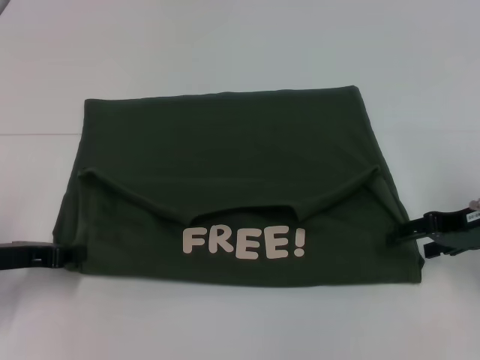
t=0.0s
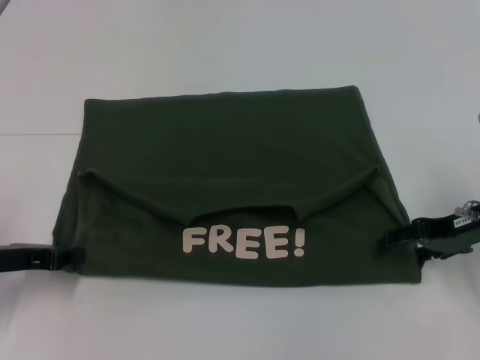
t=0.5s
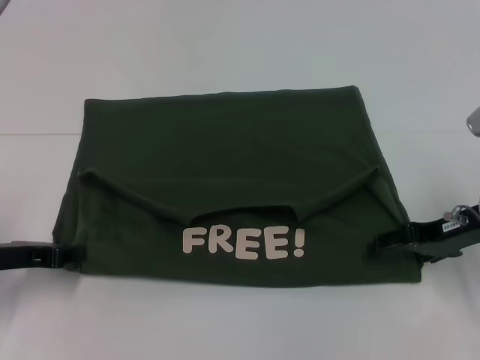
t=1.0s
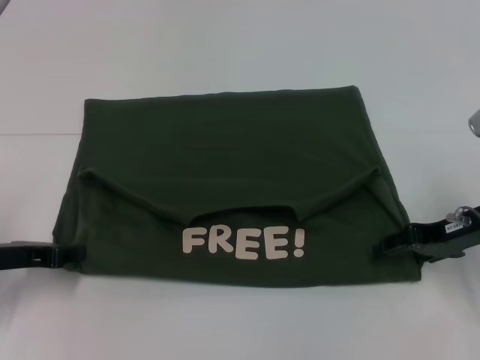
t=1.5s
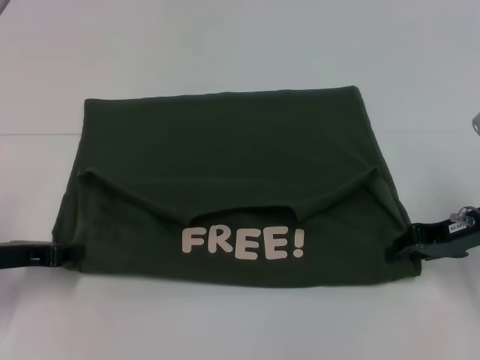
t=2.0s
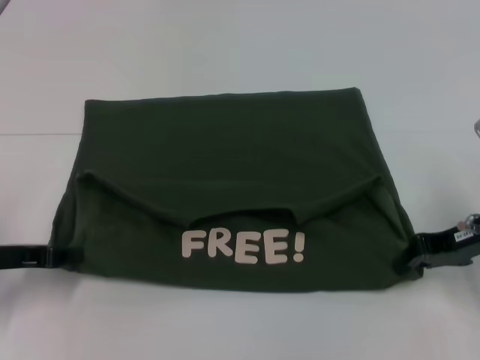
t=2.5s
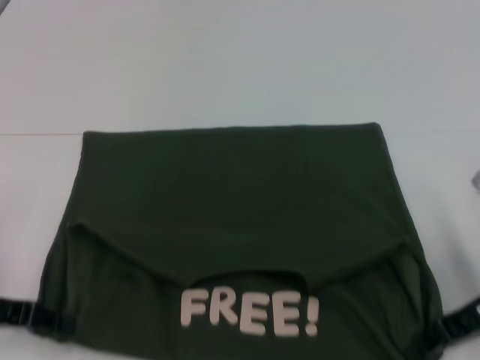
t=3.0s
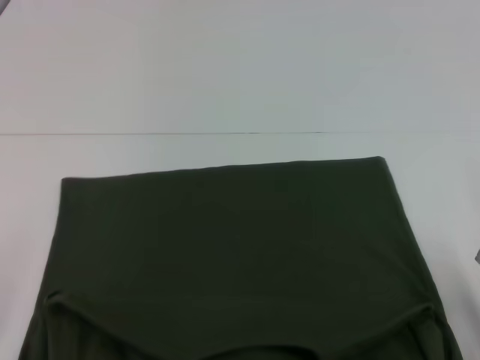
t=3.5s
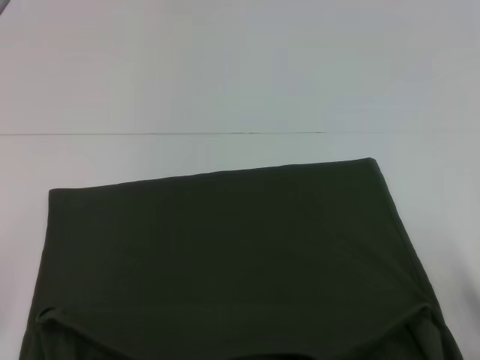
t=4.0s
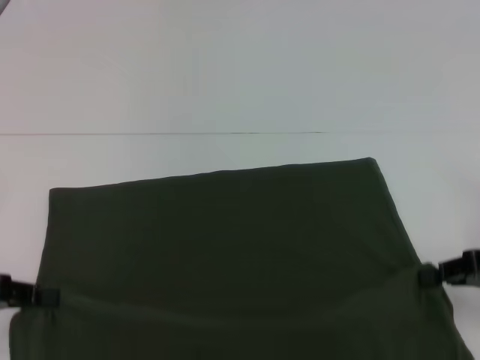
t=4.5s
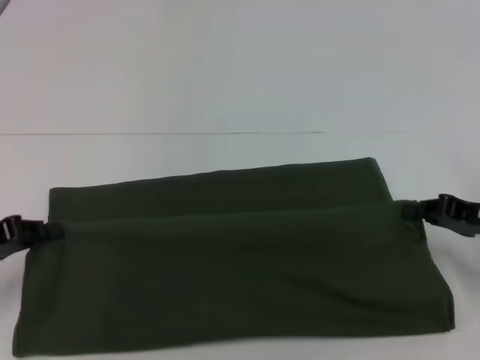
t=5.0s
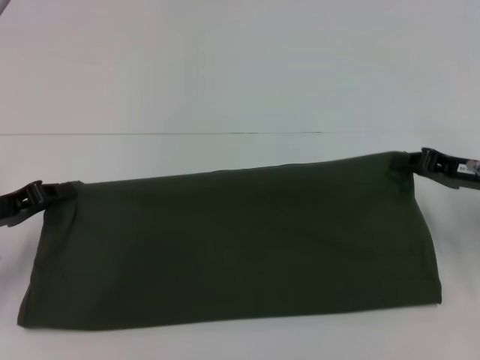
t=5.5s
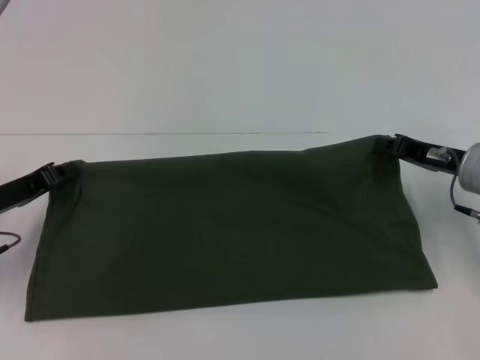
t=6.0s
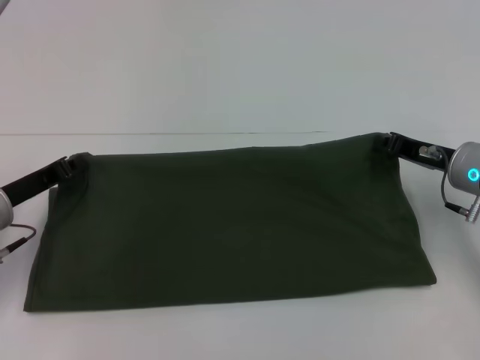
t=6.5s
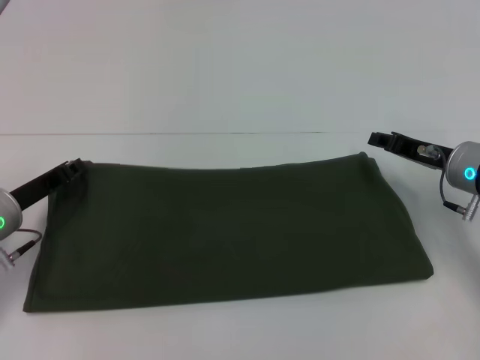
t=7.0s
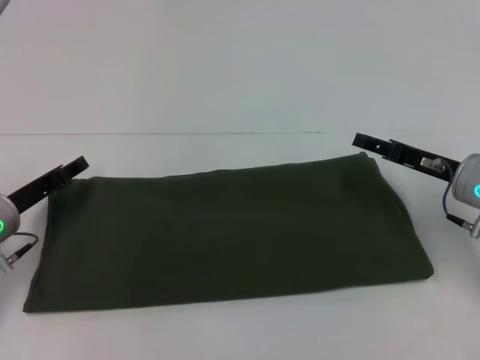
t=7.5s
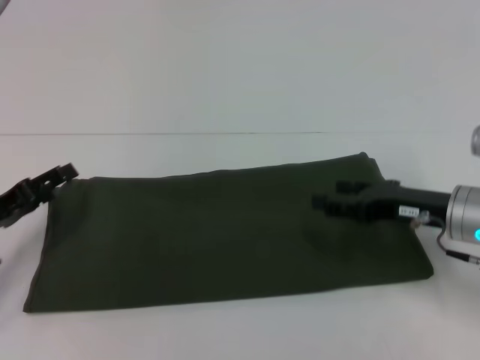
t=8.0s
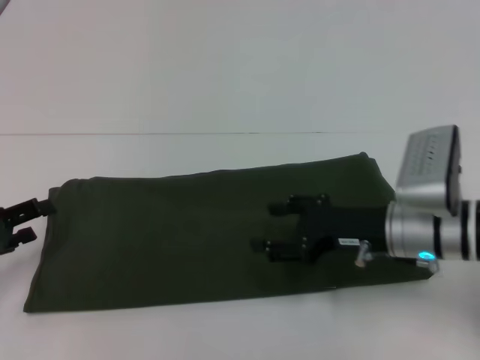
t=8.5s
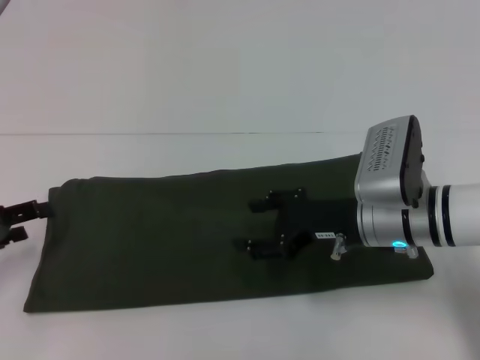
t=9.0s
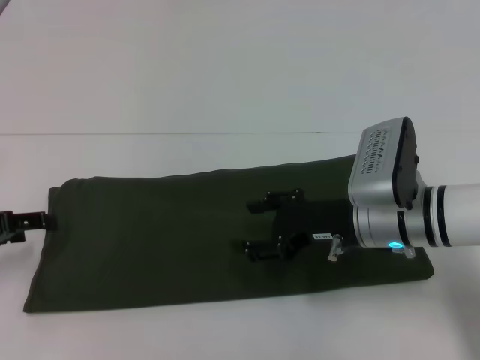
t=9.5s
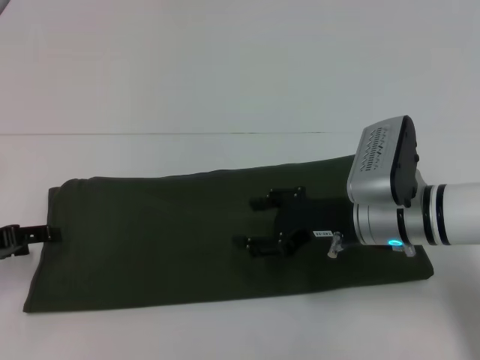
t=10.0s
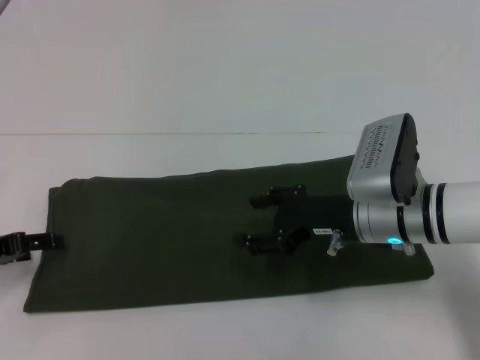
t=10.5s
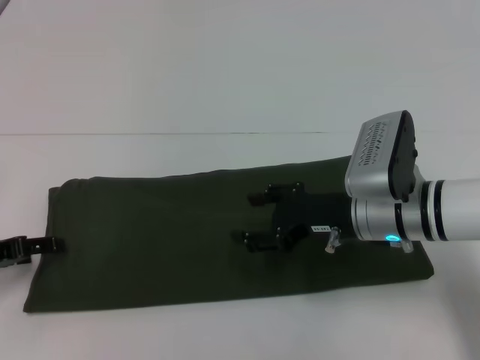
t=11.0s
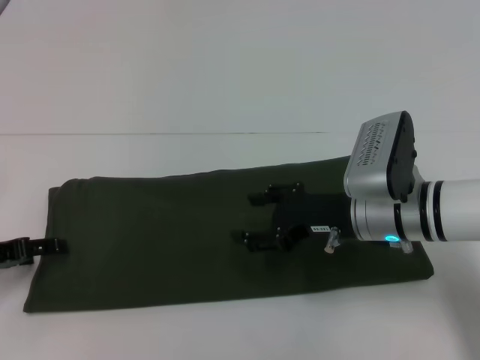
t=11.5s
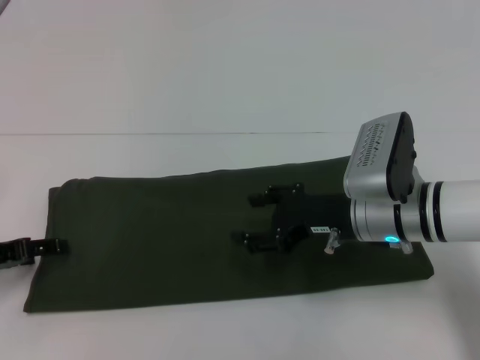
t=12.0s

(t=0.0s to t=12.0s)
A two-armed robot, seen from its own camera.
Step, t=0.0s - t=3.5s: Pull the clothes with your left hand.
Step, t=0.0s - t=3.5s: Pull the clothes with your right hand.
Step, t=4.0s - t=7.0s: Fold the clothes with your right hand.
t=0.0s - t=2.0s: The right gripper closes up.
t=2.0s - t=4.0s: The grippers both shift backward by about 10 cm. The right gripper closes.
t=4.0s - t=6.0s: Both grippers travel together forward, approximately 10 cm.
t=6.0s - t=8.0s: The left gripper opens up. Meanwhile the right gripper moves some 5 cm, and opens.
t=8.0s - t=10.0s: The right gripper heads to the left, covering some 10 cm.
t=10.0s - t=12.0s: The grippers make only small movements.

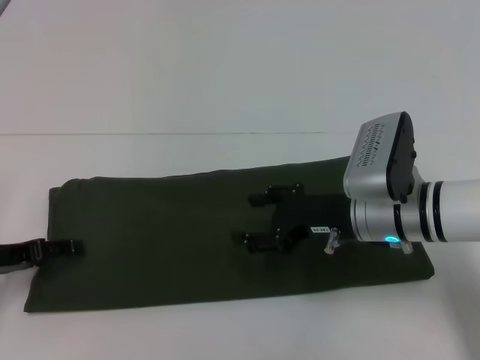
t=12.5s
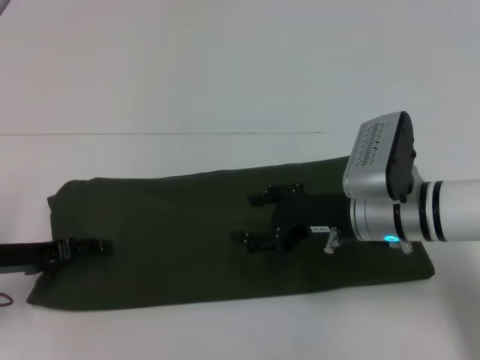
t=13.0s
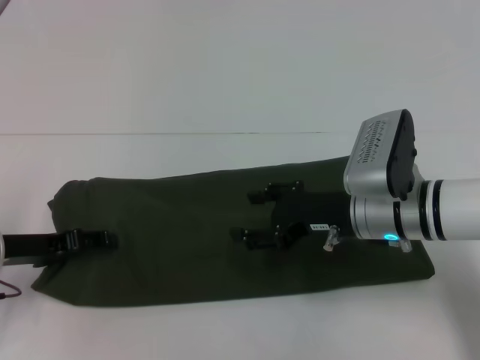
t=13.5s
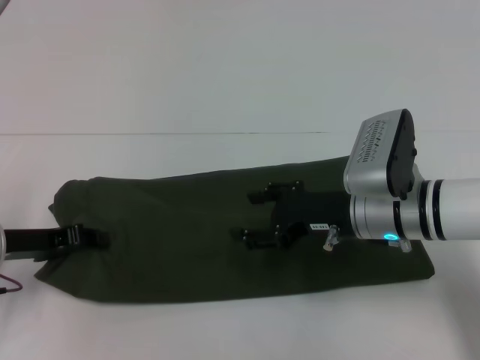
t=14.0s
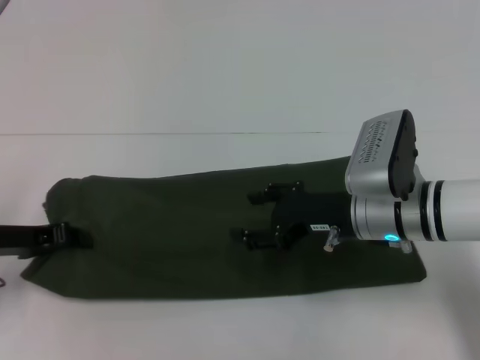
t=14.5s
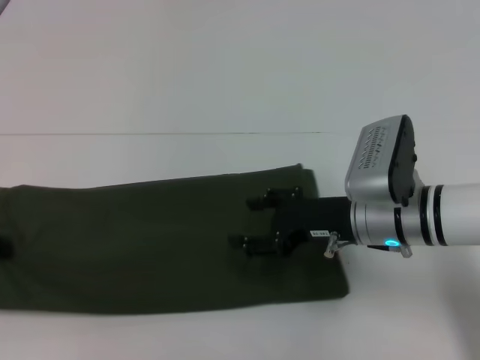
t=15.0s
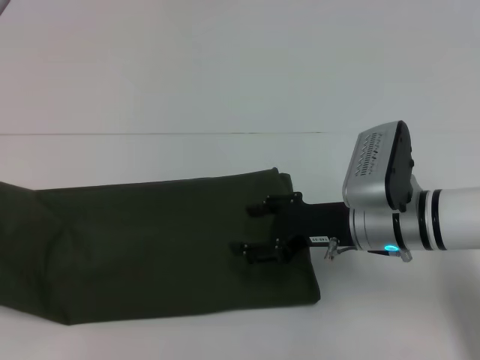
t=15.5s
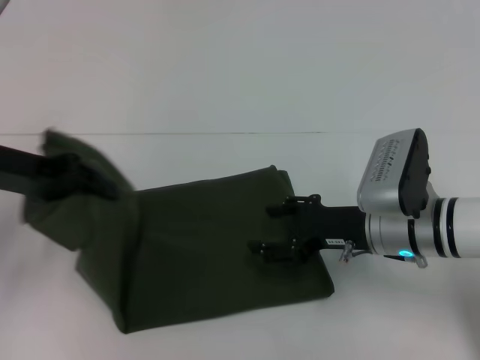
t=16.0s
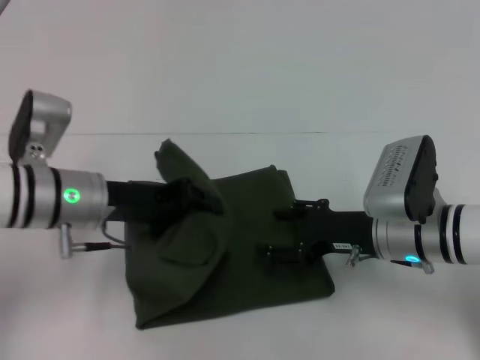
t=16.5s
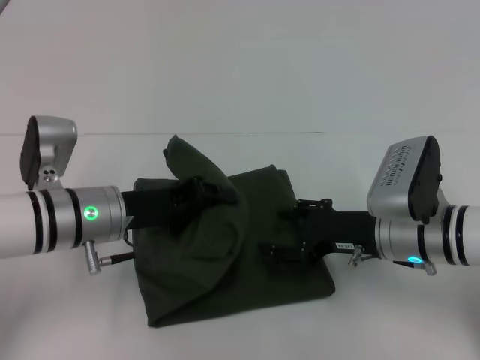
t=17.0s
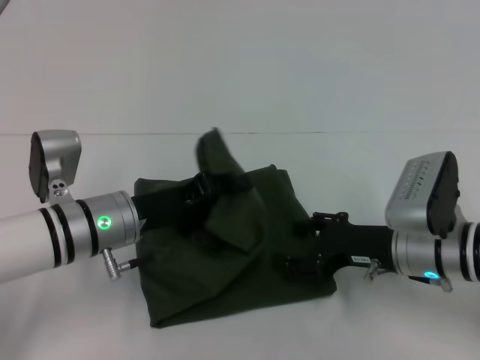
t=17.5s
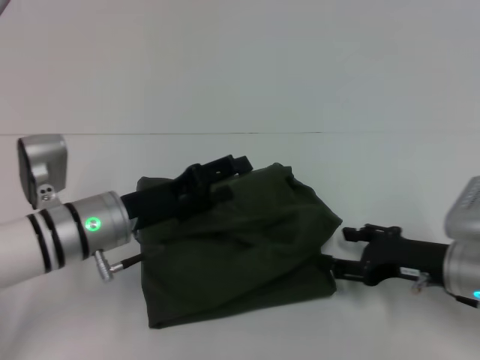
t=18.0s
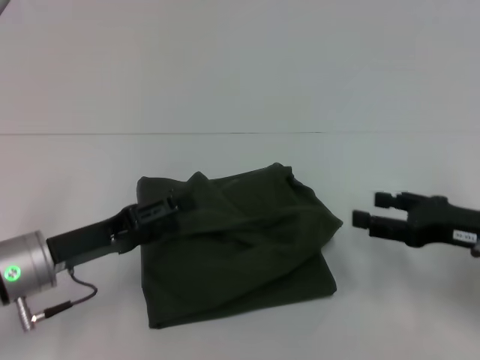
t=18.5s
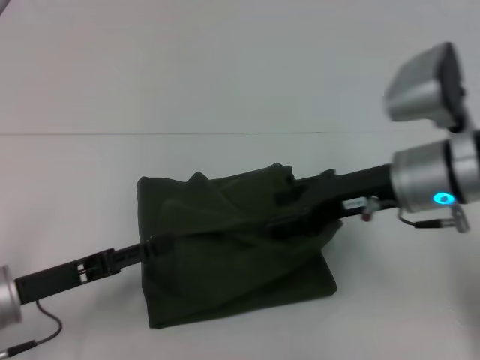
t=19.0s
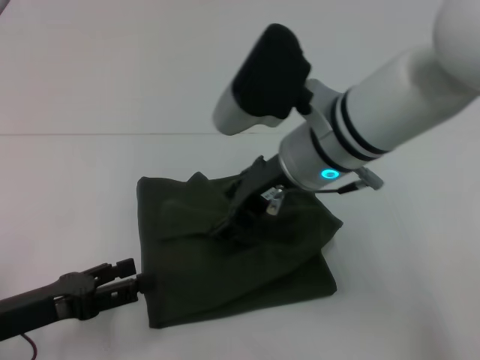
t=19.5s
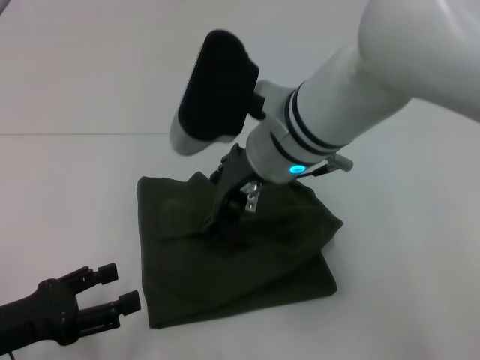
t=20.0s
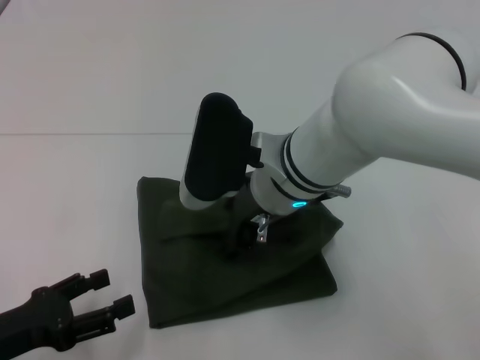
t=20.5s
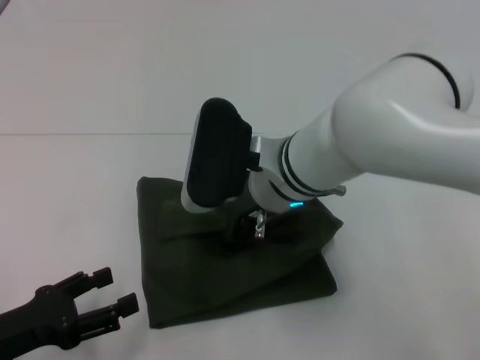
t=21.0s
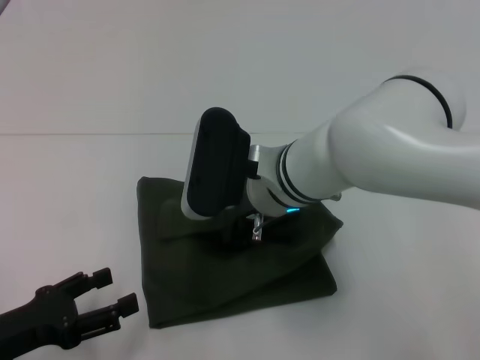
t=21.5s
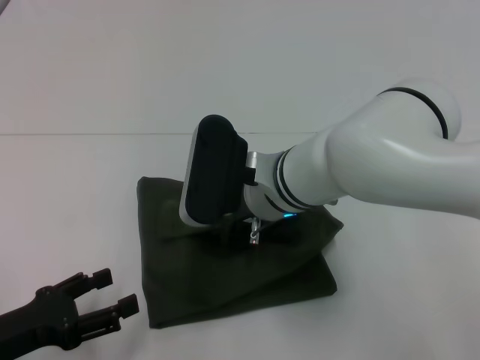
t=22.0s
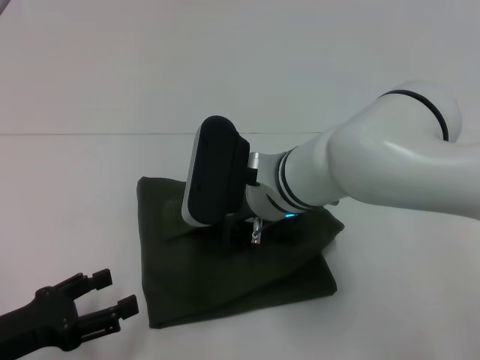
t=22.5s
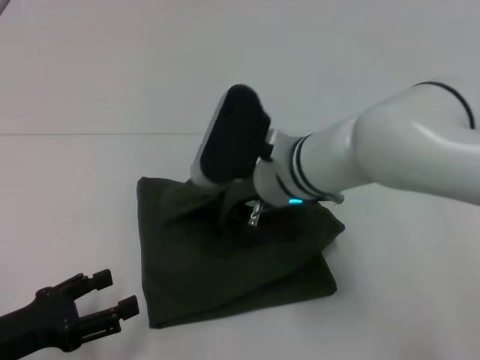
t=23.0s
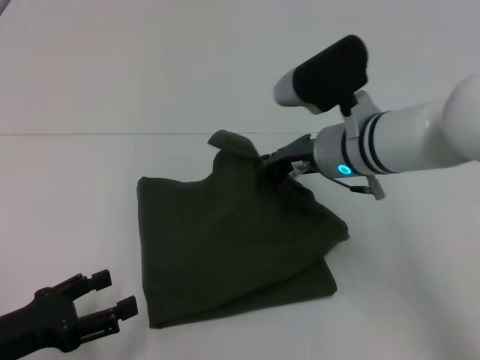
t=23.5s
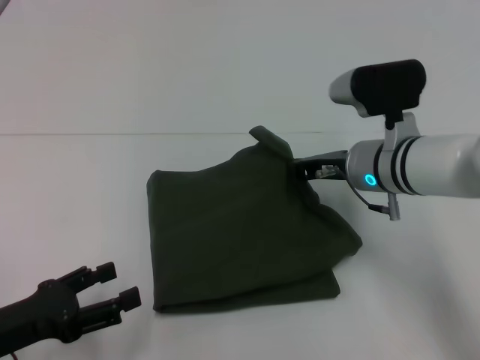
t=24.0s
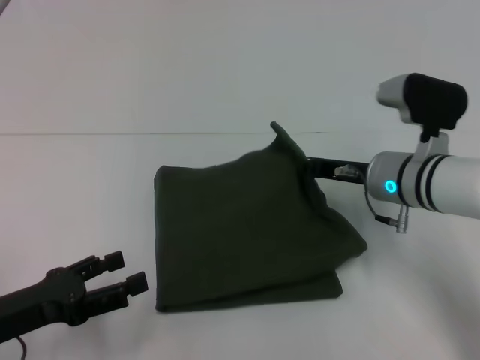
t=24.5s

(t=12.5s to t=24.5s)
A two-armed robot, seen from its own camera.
Step, t=12.5s - t=17.5s: Fold the clothes with your left hand.
t=12.5s - t=14.5s: The left gripper closes its fingers.
t=14.5s - t=16.5s: The left gripper heads to the right, covering some 10 cm.
t=16.5s - t=18.5s: The right gripper travels to the right by approximately 10 cm. The left gripper moves backward and downward, roughly 10 cm, and opens its fingers.
t=18.5s - t=20.5s: The left gripper moves backward and to the left, approximately 10 cm; the right gripper goes roughly 25 cm to the left.
t=20.5s - t=22.5s: The right gripper closes its fingers.
t=22.5s - t=24.5s: The right gripper is displaced to the right by about 15 cm.

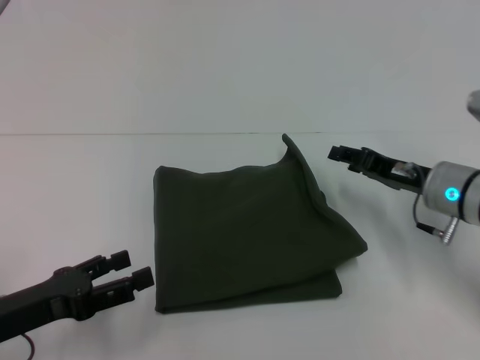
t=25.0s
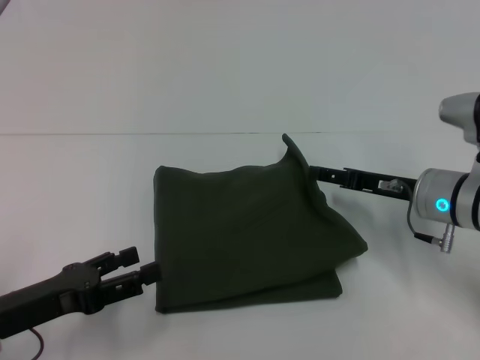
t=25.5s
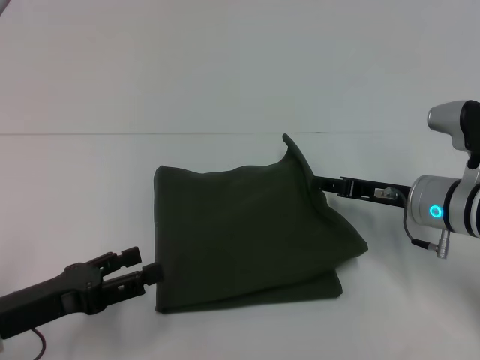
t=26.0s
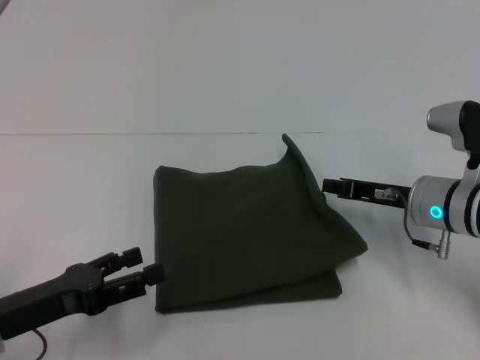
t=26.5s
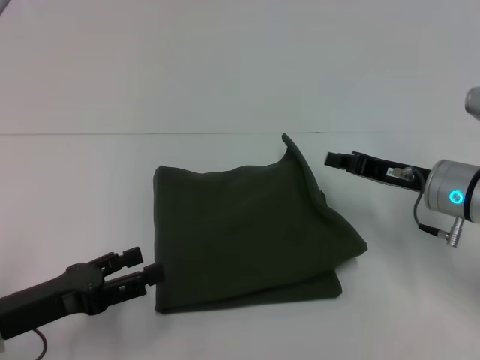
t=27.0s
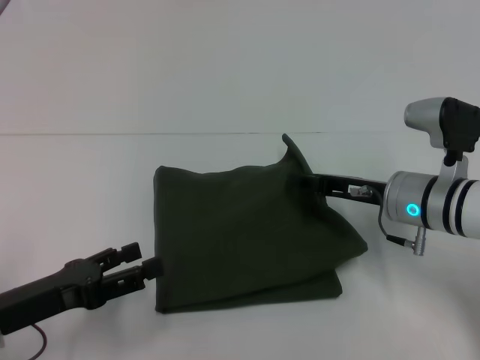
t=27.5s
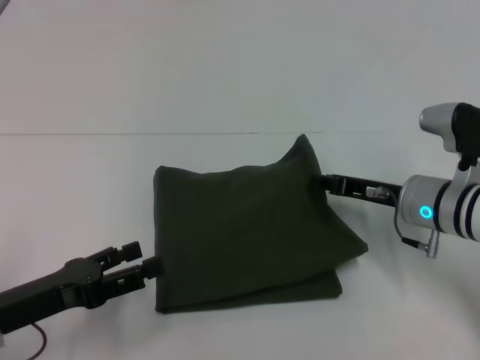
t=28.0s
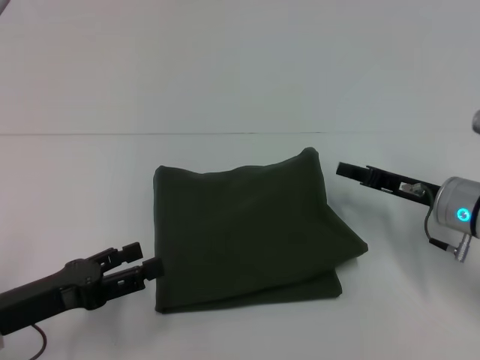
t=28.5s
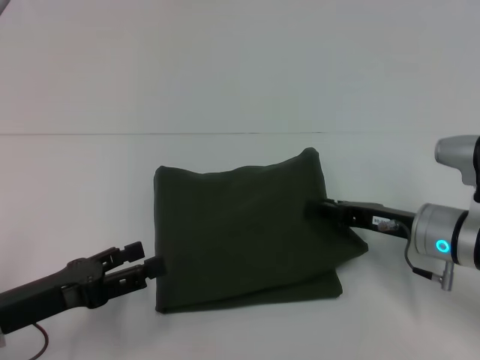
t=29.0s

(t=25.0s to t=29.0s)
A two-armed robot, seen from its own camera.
t=25.0s - t=27.0s: The right gripper closes up.
t=27.0s - t=29.0s: The right gripper opens up.
